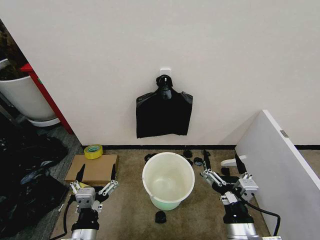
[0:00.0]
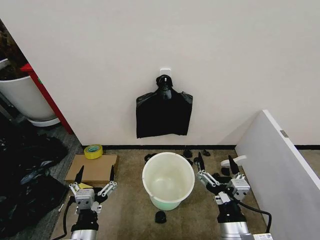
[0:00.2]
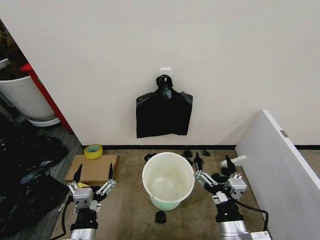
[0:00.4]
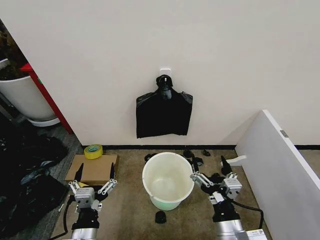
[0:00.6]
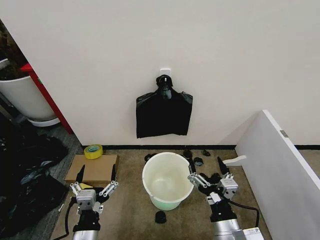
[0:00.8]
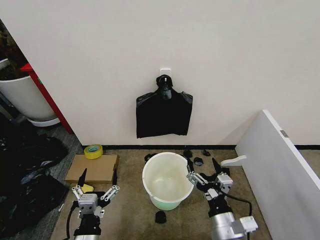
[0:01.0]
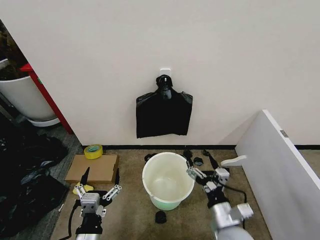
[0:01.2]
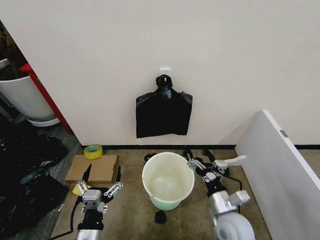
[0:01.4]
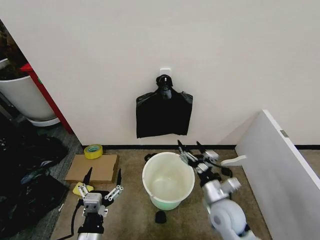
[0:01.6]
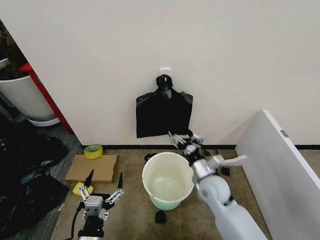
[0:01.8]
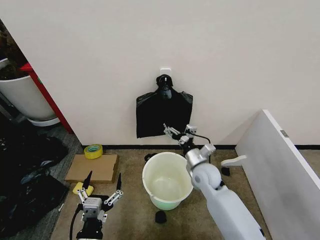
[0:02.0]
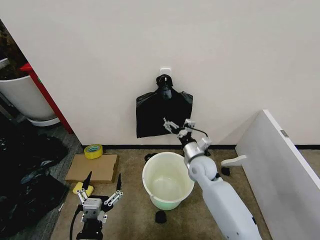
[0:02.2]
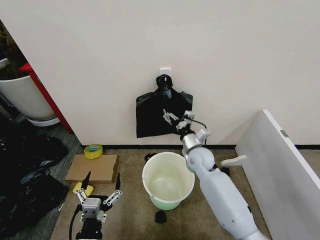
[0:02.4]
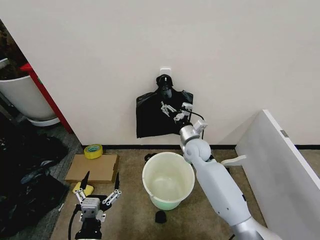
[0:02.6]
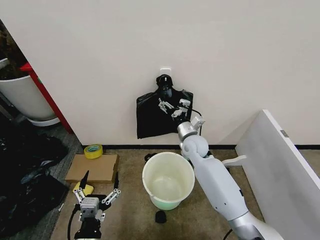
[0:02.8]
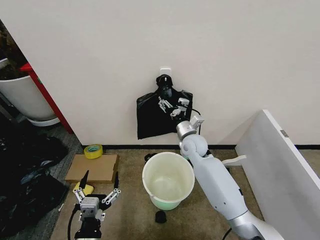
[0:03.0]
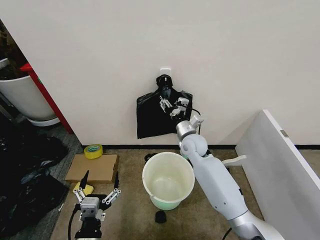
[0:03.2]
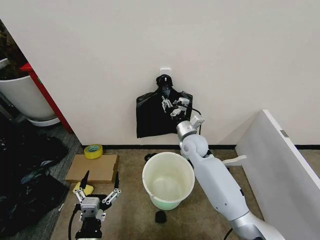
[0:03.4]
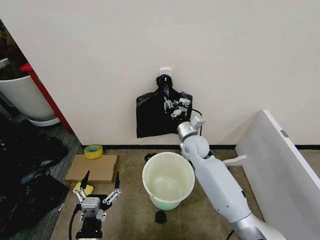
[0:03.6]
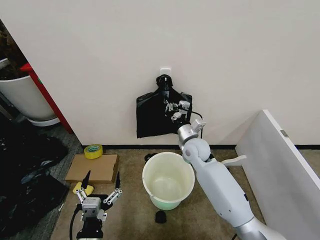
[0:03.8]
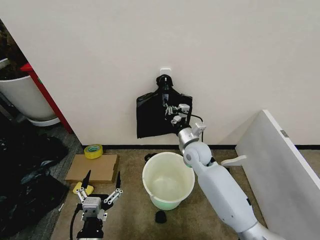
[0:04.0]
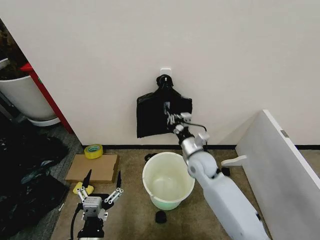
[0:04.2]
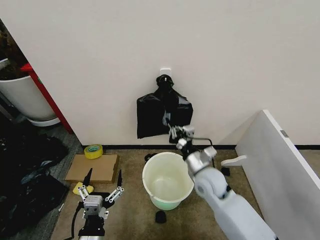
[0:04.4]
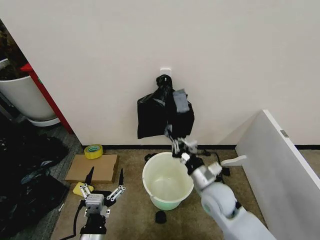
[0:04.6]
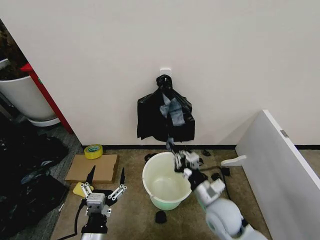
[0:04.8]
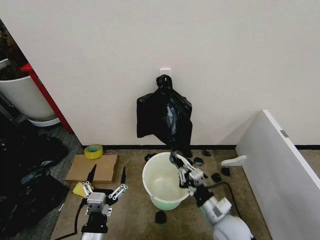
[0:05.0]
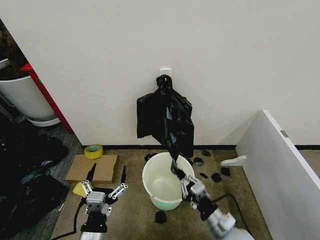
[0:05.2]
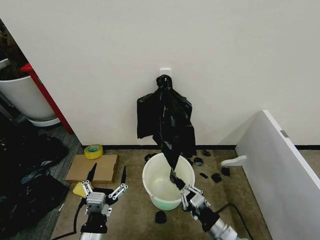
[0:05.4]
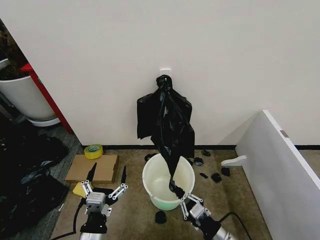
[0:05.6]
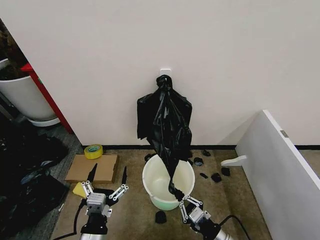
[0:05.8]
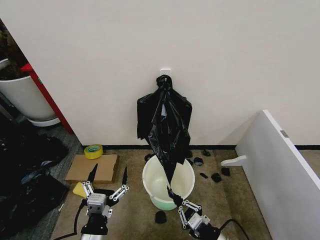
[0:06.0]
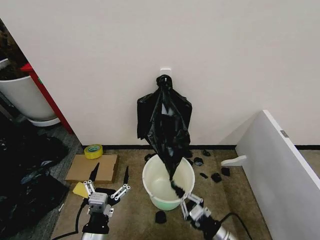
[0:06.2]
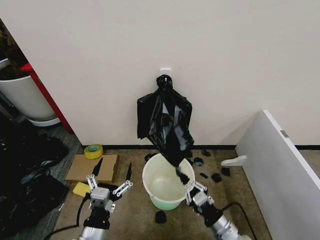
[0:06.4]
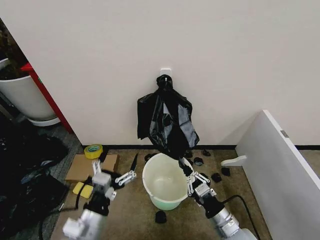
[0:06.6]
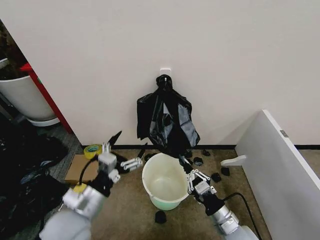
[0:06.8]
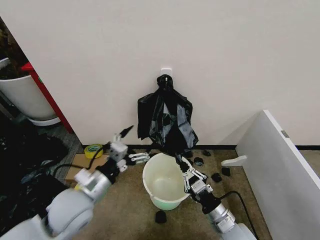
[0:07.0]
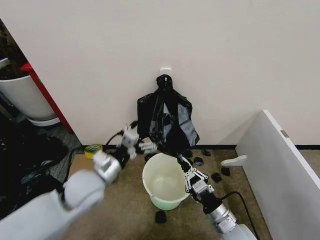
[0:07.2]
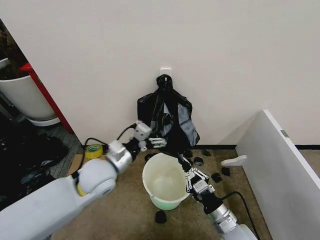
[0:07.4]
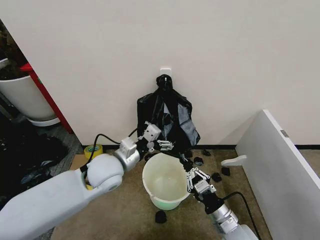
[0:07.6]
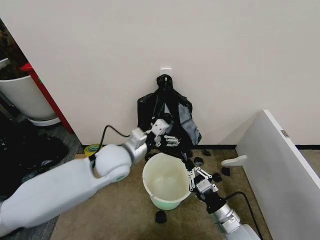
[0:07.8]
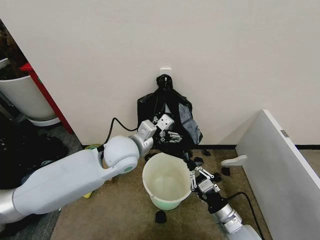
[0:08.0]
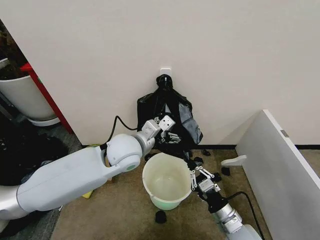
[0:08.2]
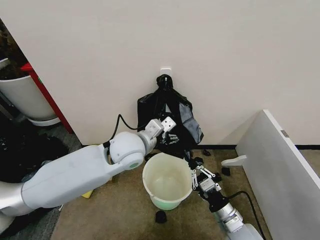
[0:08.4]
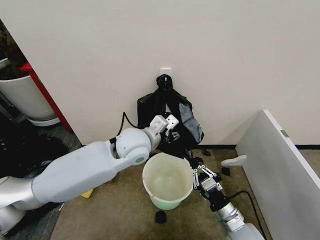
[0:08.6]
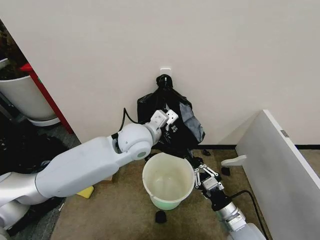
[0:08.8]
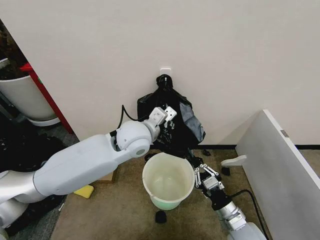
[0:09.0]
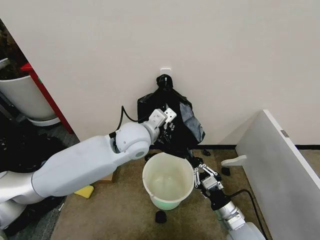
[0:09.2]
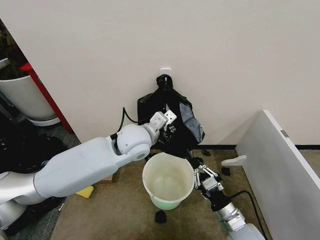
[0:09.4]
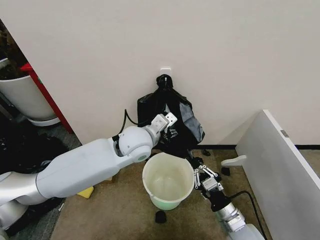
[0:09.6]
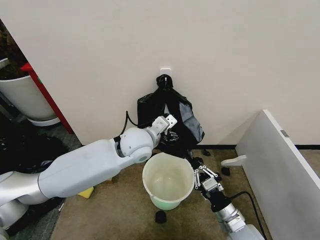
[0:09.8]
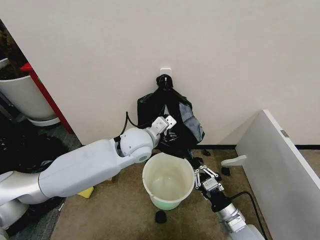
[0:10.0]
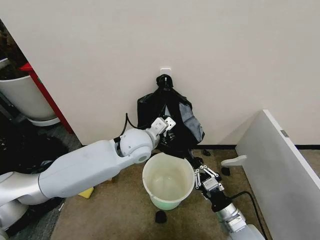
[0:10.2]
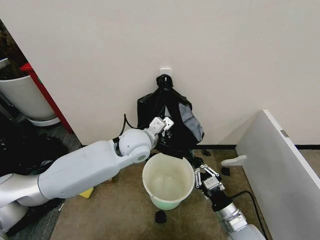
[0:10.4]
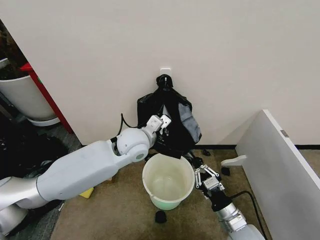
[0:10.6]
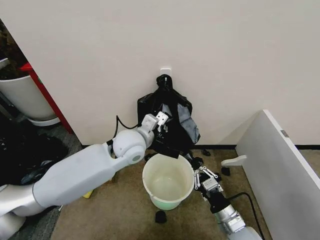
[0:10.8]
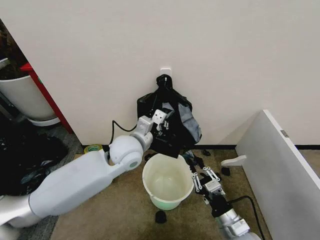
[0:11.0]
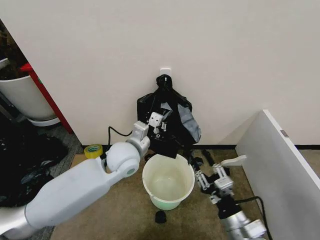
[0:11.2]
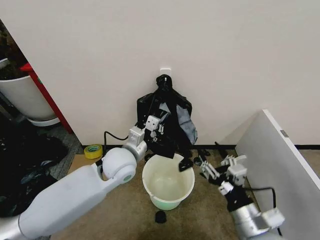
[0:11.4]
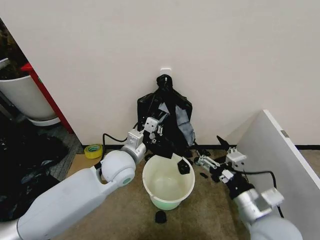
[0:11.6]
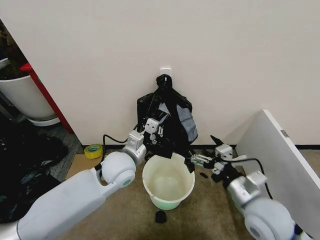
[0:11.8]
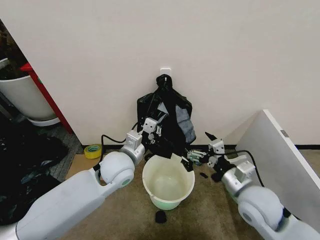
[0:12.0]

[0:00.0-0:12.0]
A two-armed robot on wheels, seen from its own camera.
Task of the whole recording: Place the garbage bag over the trash bin.
0:01.6 to 0:03.0: The right gripper moves forward, some 20 cm.
0:03.0 to 0:04.4: The right gripper shifts roughly 15 cm backward, and closes.
0:04.4 to 0:06.0: The right gripper heads backward and downward, covering about 25 cm.
0:06.0 to 0:07.6: The right gripper is displaced forward by about 5 cm. Meanwhile the left gripper heads forward and upward, covering roughly 25 cm.
0:07.6 to 0:09.0: The left gripper travels to the right, upward and forward by roughly 10 cm, and closes up.
0:09.0 to 0:10.4: The left gripper opens, then closes once more.
0:10.4 to 0:12.0: The right gripper heads upward and forward, covering about 15 cm, and opens up; the left gripper goes roughly 5 cm backward and to the left.

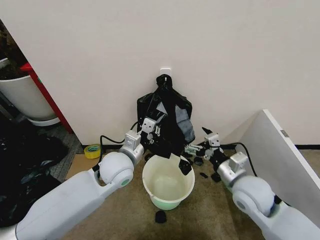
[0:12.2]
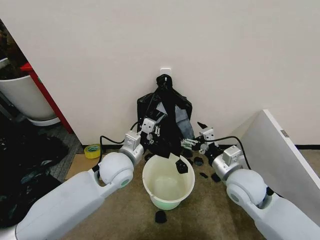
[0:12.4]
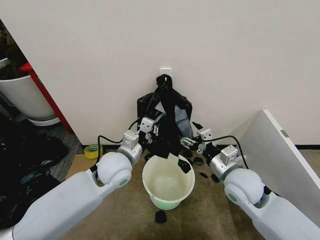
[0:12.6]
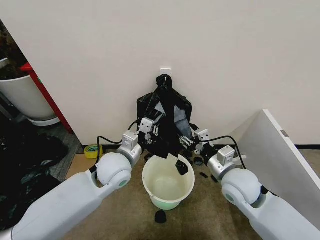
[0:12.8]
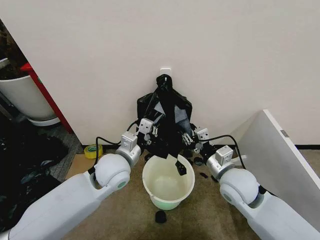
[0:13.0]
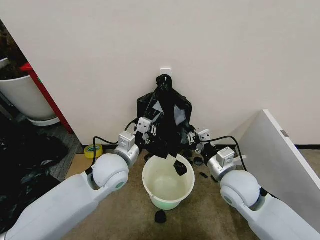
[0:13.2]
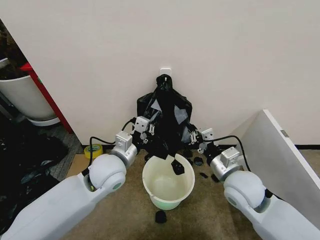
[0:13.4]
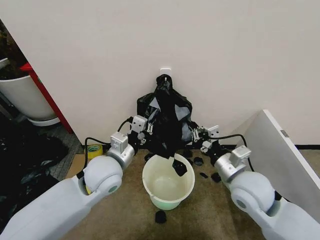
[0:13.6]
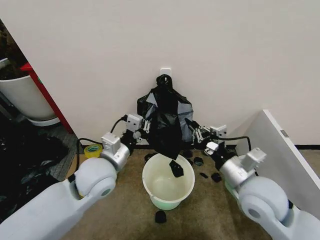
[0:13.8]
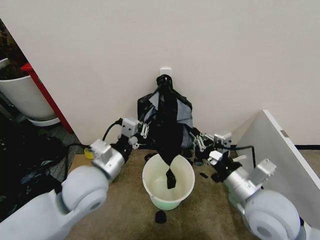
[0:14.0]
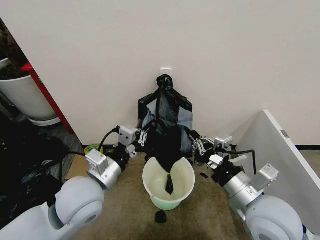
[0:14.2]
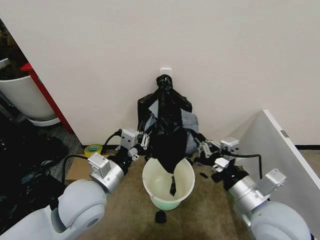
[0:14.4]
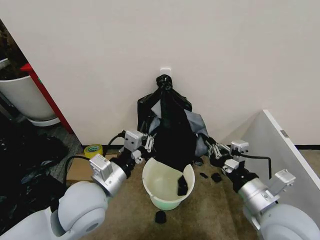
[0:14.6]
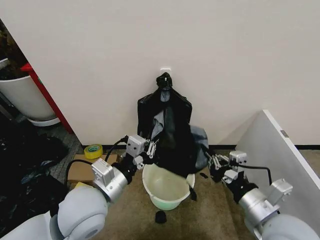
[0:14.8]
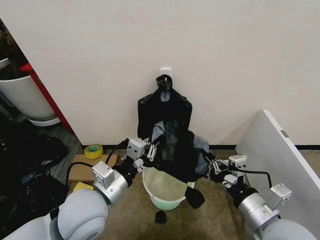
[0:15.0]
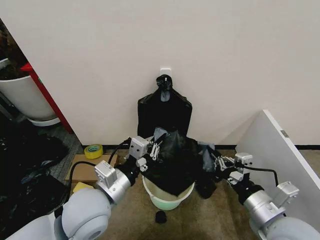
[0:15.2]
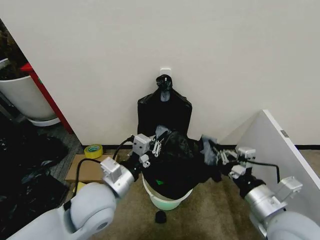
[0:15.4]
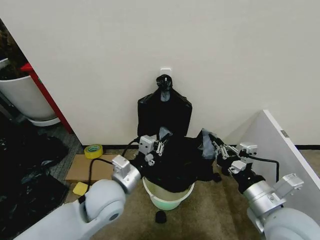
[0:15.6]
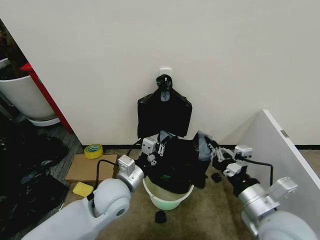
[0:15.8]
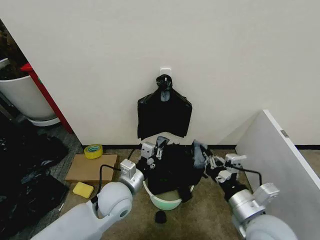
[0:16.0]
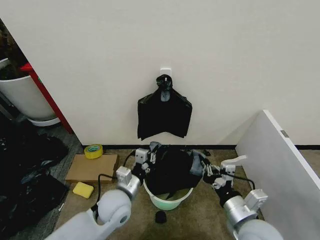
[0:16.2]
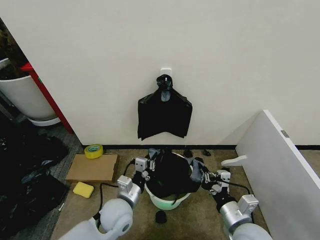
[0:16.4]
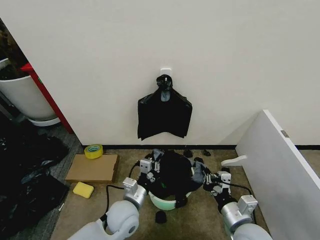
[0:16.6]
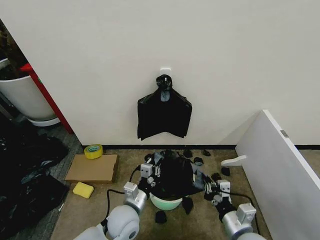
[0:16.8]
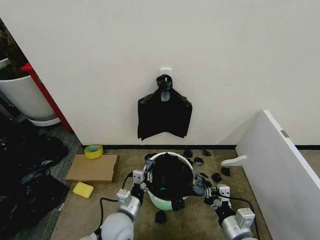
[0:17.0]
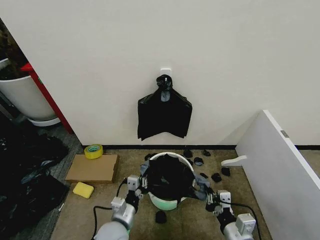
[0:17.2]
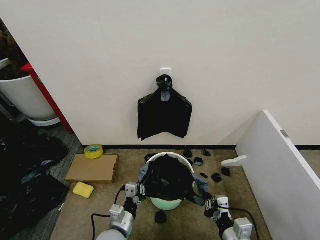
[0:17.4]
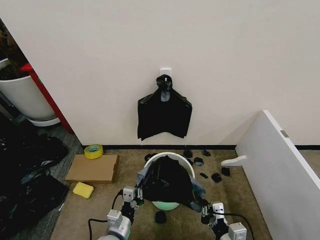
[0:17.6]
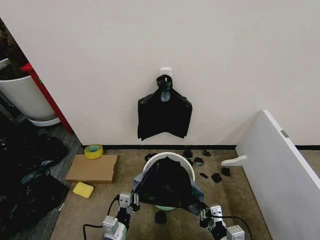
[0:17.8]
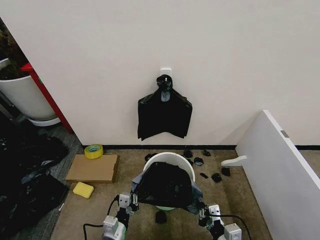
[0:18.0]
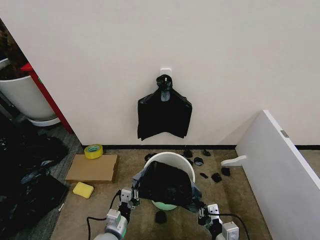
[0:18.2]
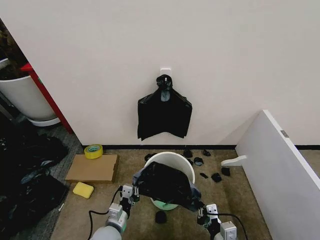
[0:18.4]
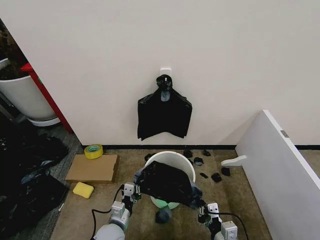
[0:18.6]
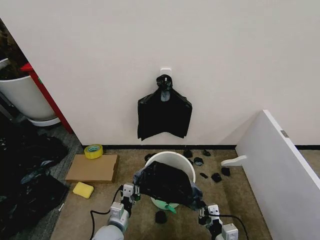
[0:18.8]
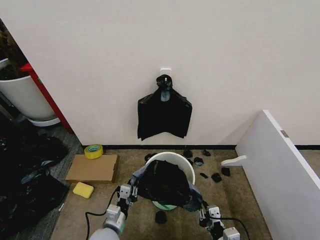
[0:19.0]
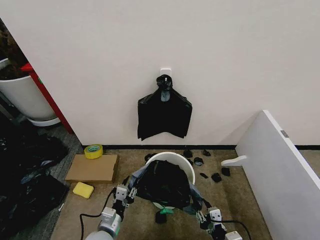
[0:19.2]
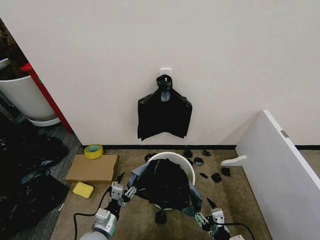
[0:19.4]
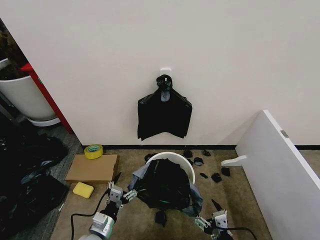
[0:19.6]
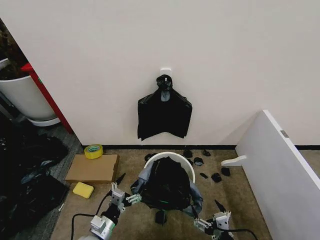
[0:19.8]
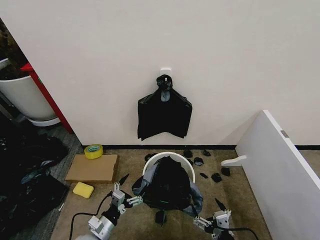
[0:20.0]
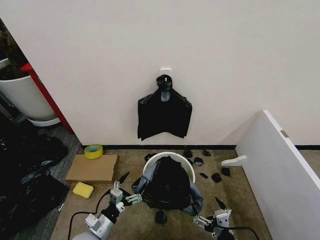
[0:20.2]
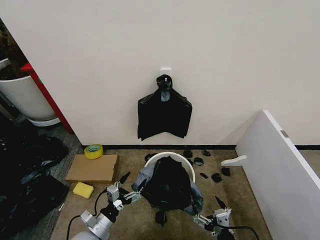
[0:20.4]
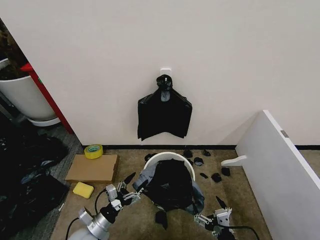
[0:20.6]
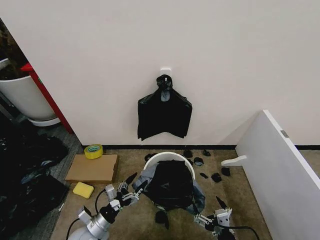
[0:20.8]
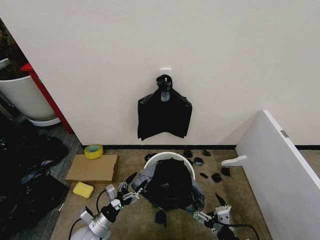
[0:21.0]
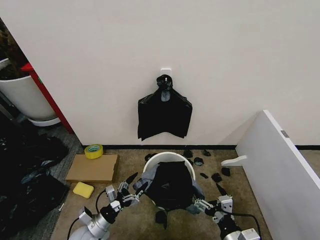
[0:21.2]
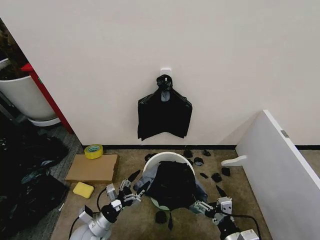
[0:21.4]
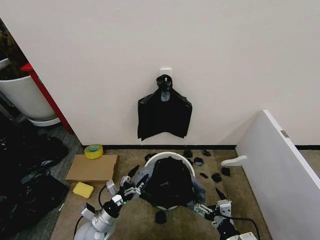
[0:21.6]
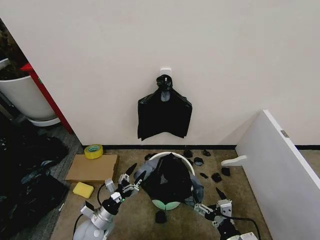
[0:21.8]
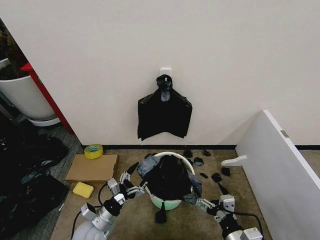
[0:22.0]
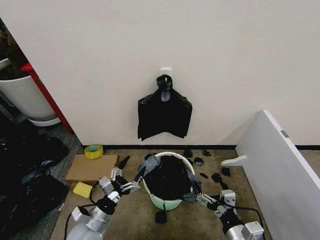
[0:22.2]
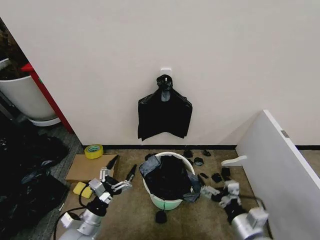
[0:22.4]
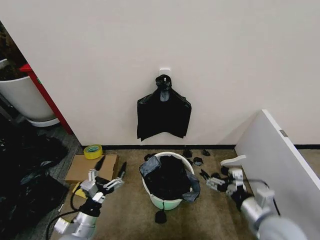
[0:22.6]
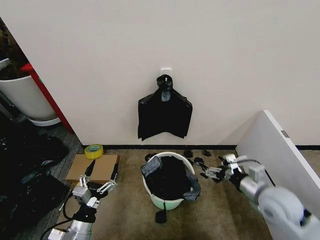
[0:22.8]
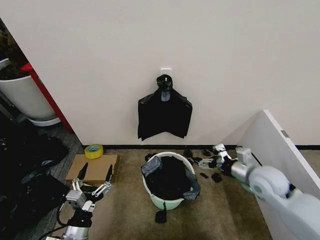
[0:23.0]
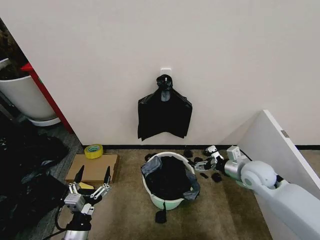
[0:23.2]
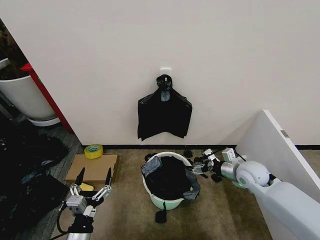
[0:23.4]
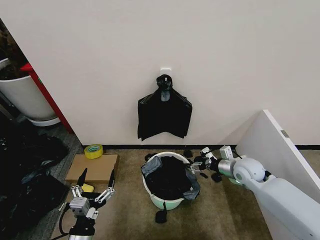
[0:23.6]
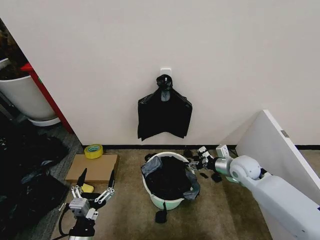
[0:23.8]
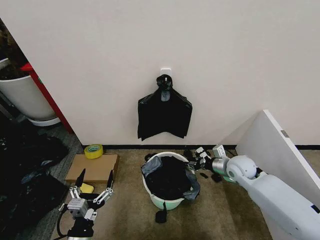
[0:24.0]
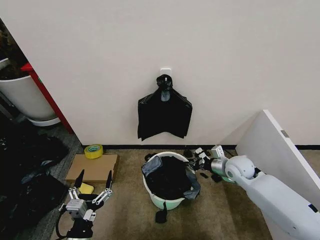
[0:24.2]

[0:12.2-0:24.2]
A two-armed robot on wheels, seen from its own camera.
Task of the whole recording: Place the garbage bag over the trash bin.
0:12.2 to 0:13.8: The left gripper shifts by roughly 5 cm. The right gripper goes approximately 5 cm upward, and closes its fingers.
0:13.8 to 0:15.2: Both grippers travel together backward, some 10 cm.
0:15.2 to 0:16.6: The grippers both shift downward by roughly 15 cm.
0:16.6 to 0:18.2: The left gripper is displaced downward, backward and to the left by some 10 cm, while the right gripper is displaced downward and backward by some 10 cm.
0:18.2 to 0:19.8: The left gripper is displaced to the left by about 5 cm, and opens its fingers. The right gripper changes place by about 5 cm, and opens up.
0:19.8 to 0:21.2: The left gripper moves roughly 5 cm.
0:21.2 to 0:22.6: The right gripper is displaced forward, upward and to the right by approximately 15 cm, while the left gripper goes some 10 cm upward.
0:22.6 to 0:24.2: The left gripper moves backward, approximately 5 cm. Meanwhile the right gripper shifts roughly 20 cm forward, and closes up.
